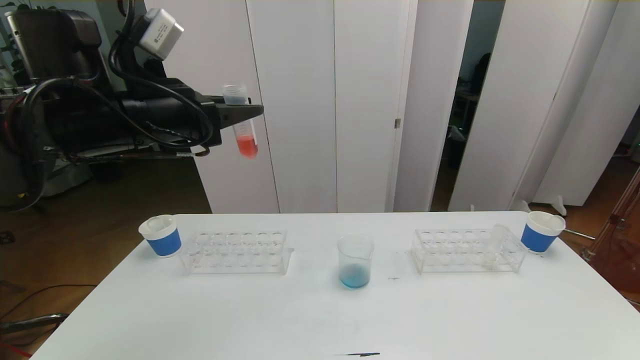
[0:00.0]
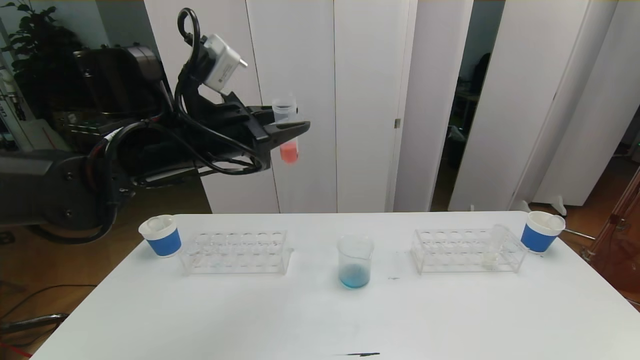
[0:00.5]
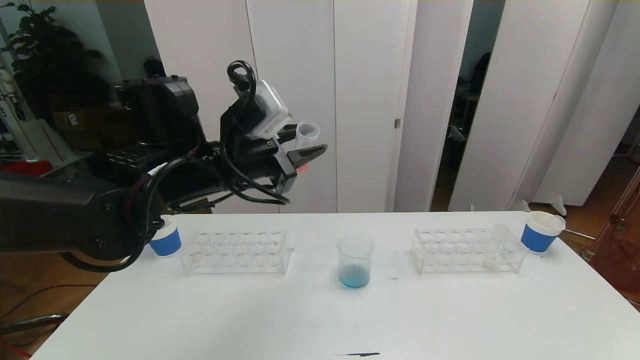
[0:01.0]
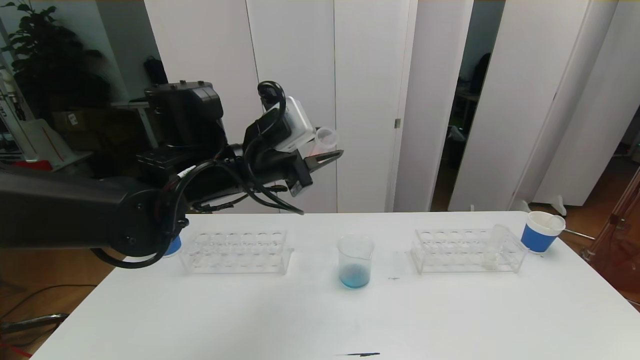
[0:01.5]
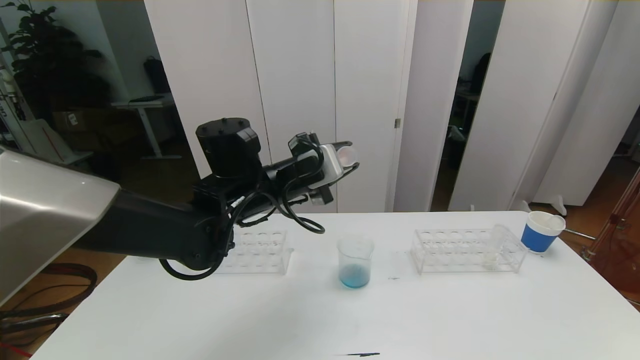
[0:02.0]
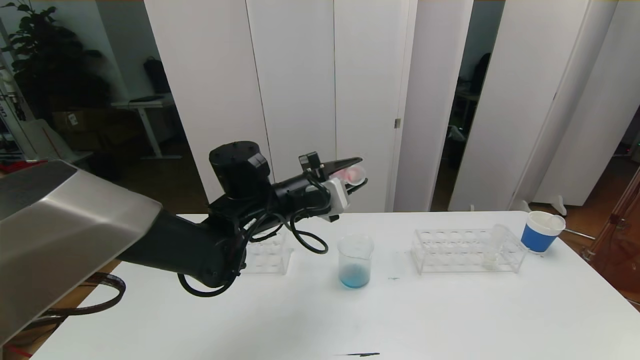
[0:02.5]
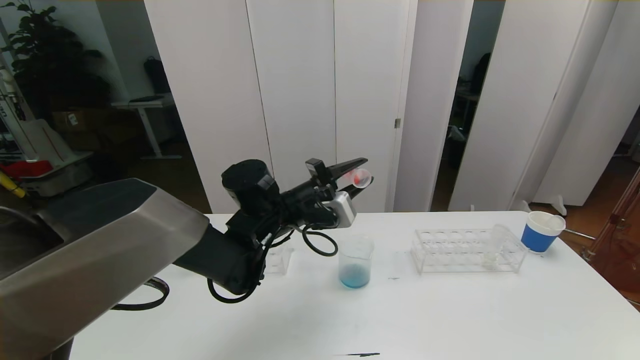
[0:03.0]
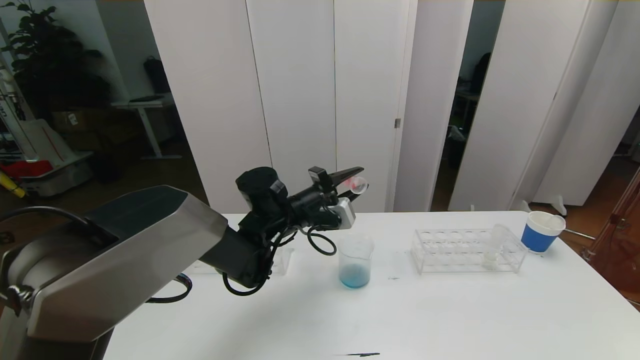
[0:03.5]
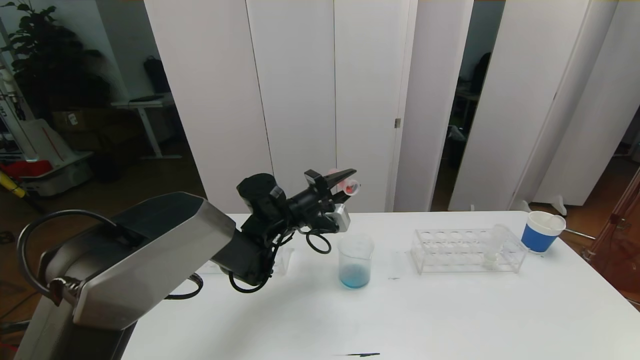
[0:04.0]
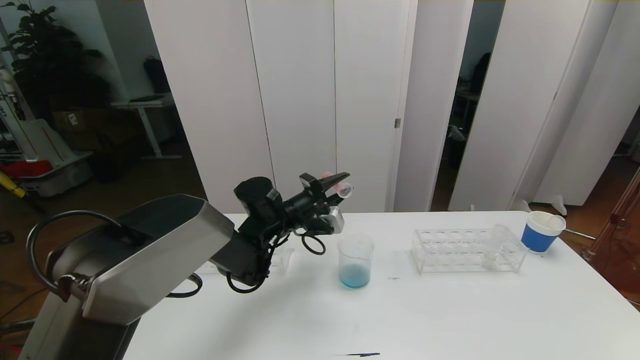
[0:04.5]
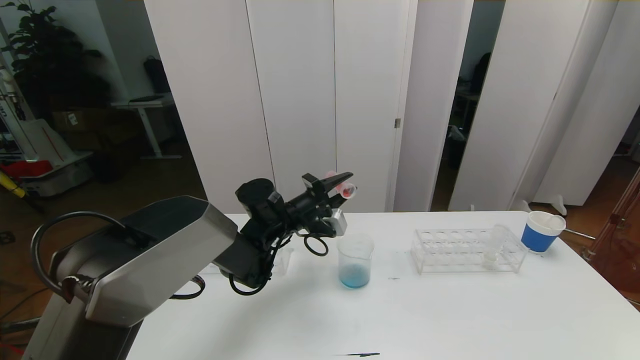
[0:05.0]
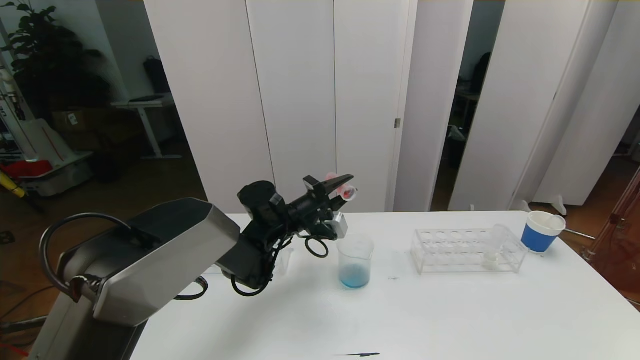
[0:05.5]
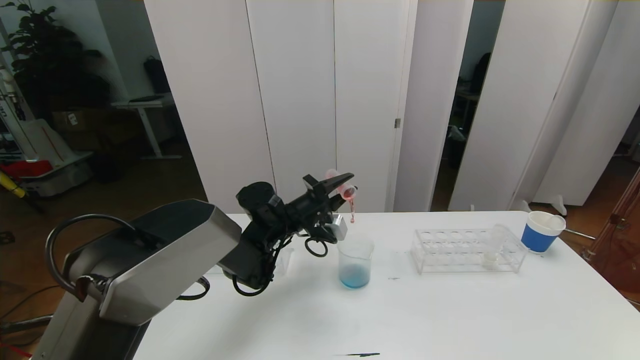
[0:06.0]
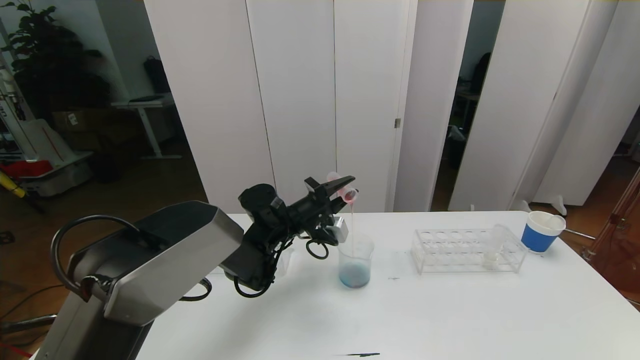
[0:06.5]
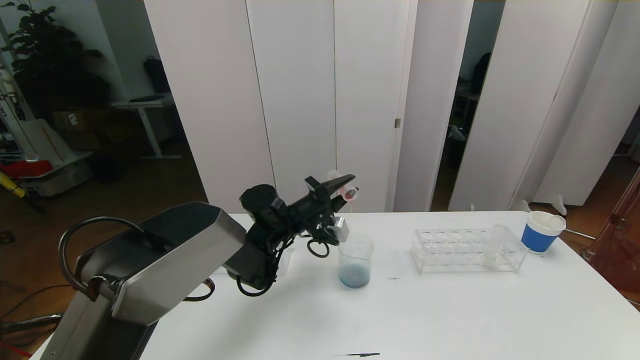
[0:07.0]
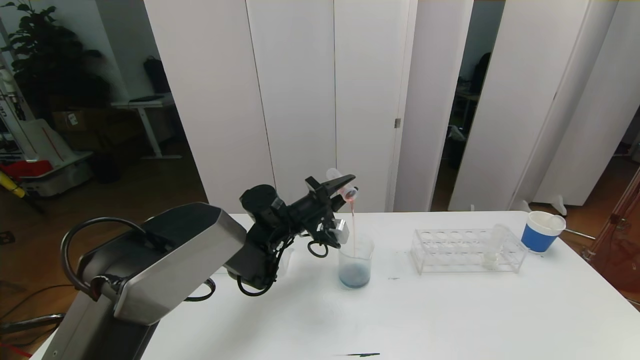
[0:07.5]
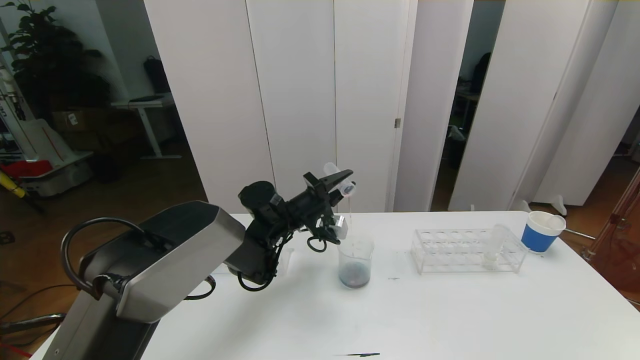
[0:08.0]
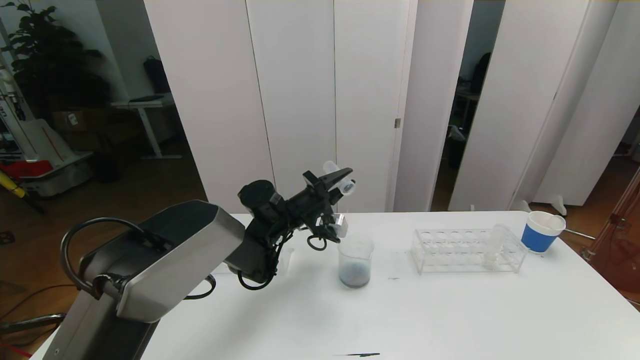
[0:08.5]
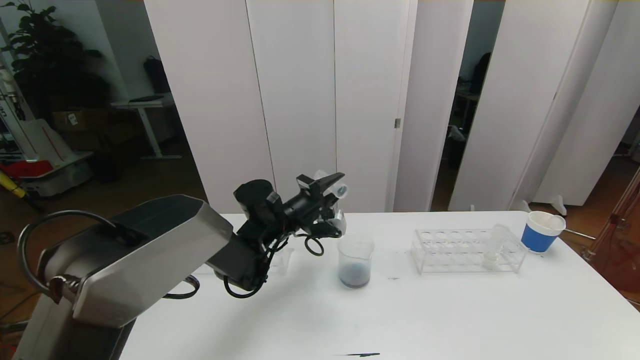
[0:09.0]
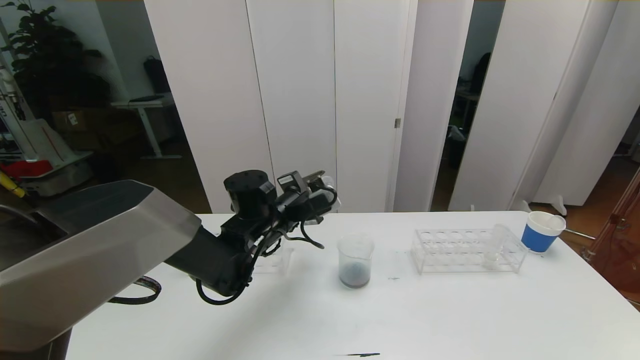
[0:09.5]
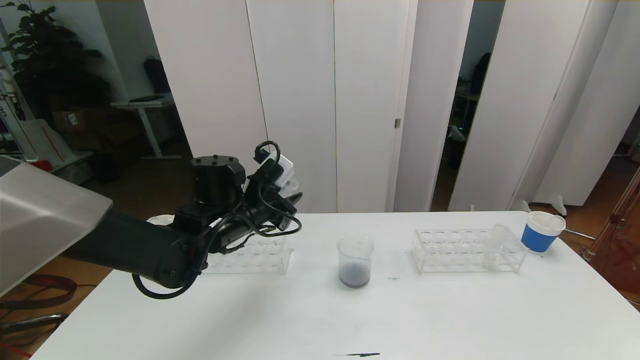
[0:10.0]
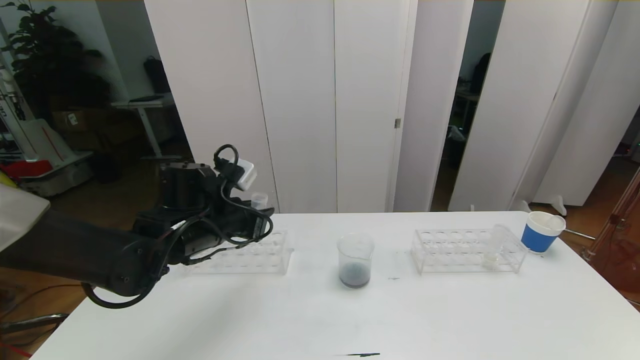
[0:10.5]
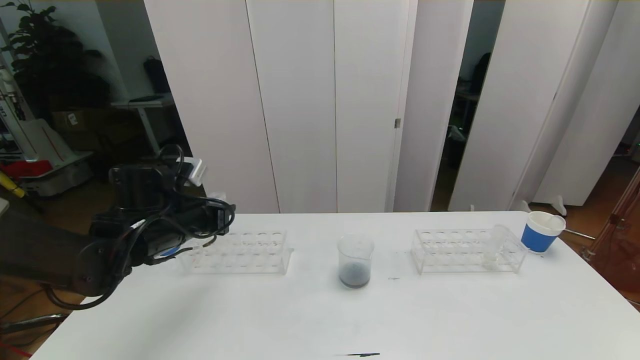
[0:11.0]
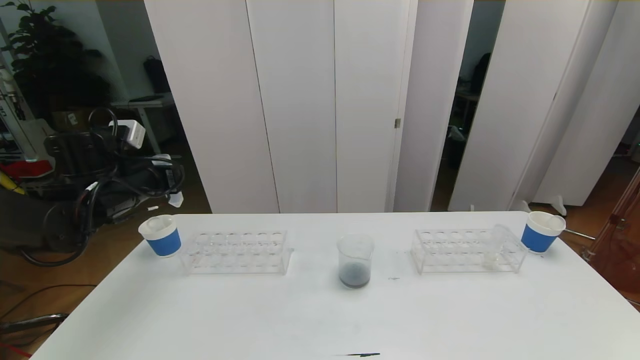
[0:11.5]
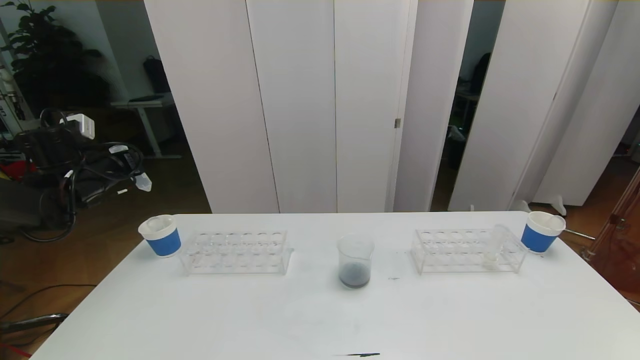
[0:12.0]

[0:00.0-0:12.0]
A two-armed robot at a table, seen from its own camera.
Task of the whole recording: pick up the test tube with red pigment the test tube with blue pigment and the test tube with white pigment by grippers and pour them into the beaker.
0:00.0 to 0:02.0: The left gripper is displaced to the right and downward by approximately 15 cm.
0:02.0 to 0:04.0: The left gripper travels downward and forward by approximately 10 cm.
0:04.0 to 0:08.0: The grippers move only a little.
0:08.0 to 0:10.0: The left gripper shifts some 10 cm backward, to the left and upward.
0:10.0 to 0:12.0: The left gripper moves to the left, about 25 cm.

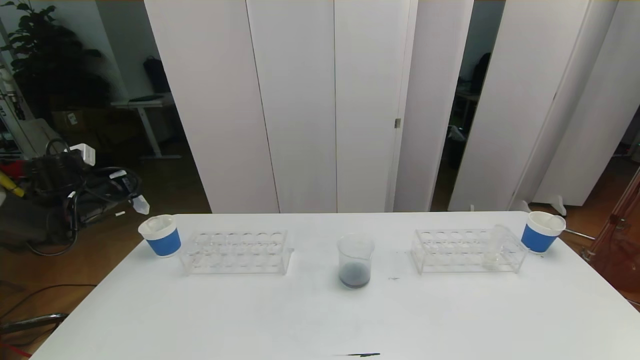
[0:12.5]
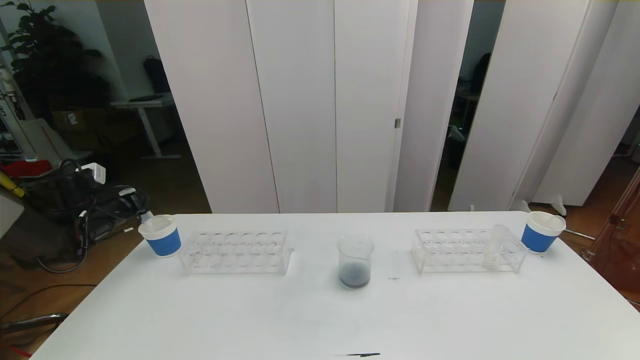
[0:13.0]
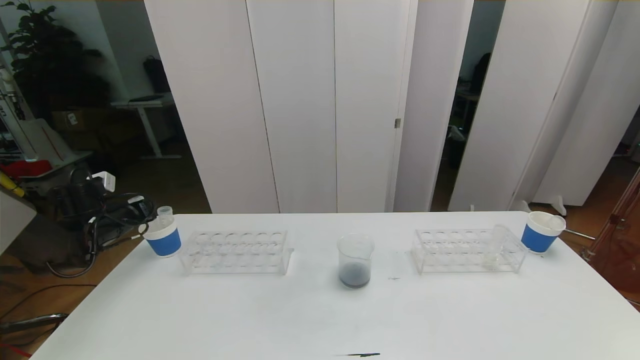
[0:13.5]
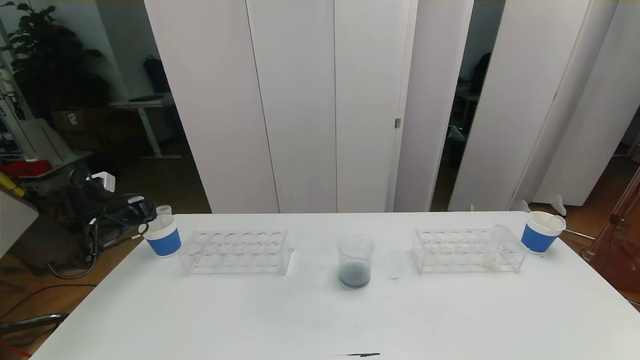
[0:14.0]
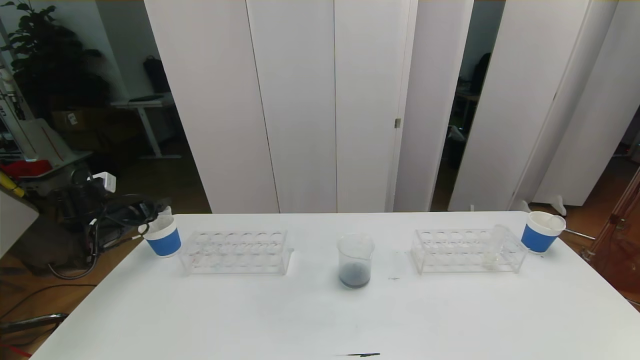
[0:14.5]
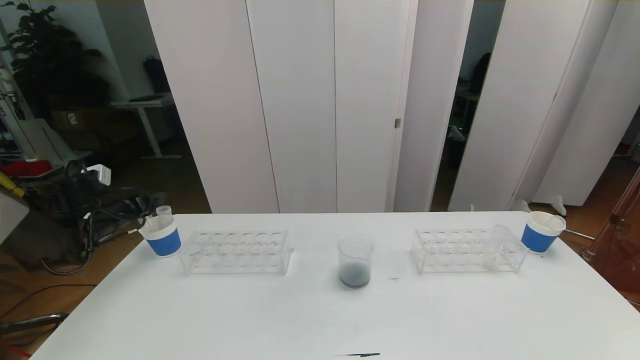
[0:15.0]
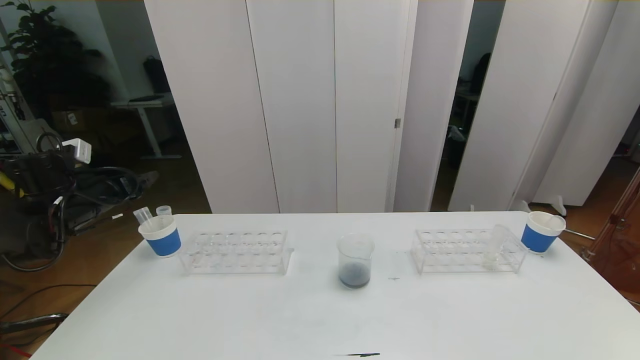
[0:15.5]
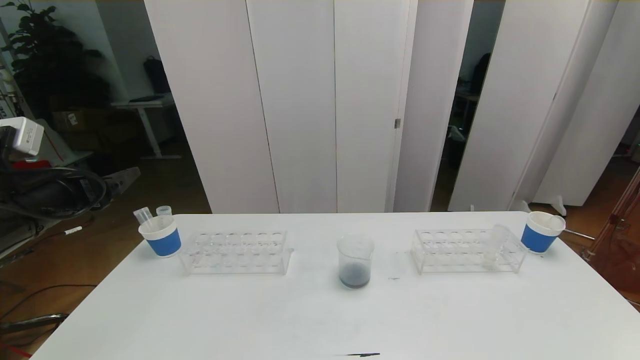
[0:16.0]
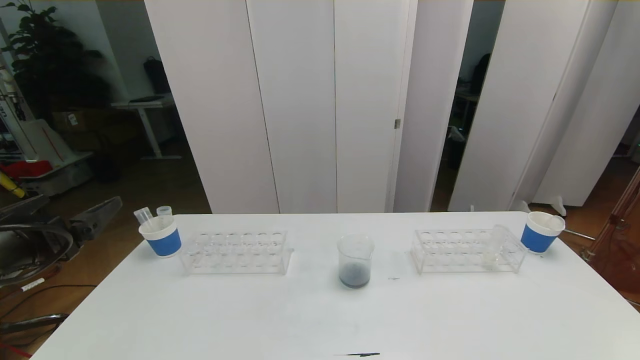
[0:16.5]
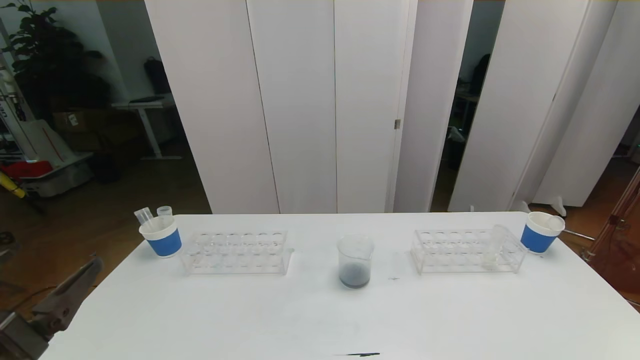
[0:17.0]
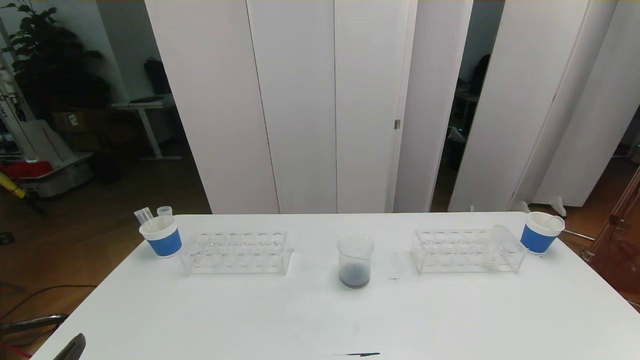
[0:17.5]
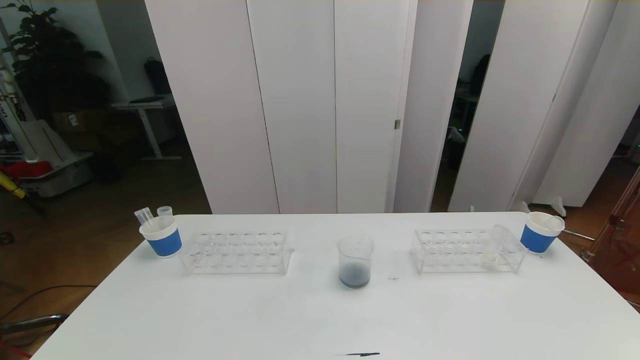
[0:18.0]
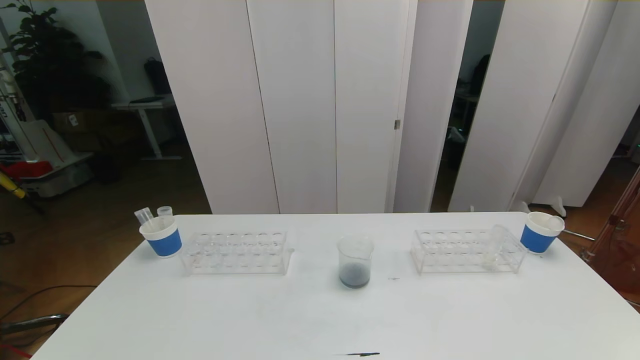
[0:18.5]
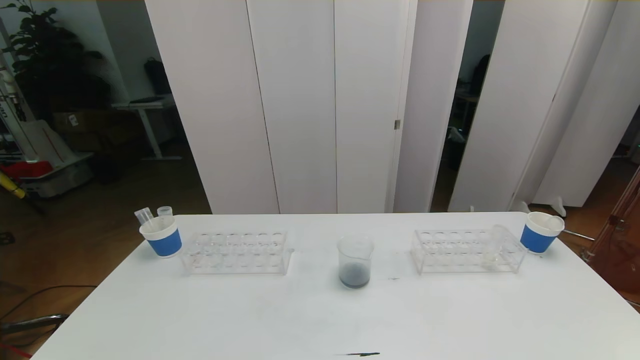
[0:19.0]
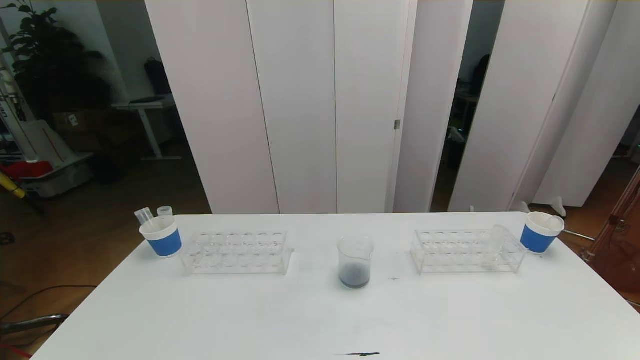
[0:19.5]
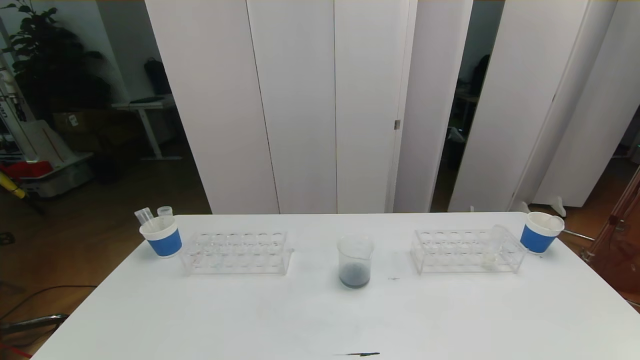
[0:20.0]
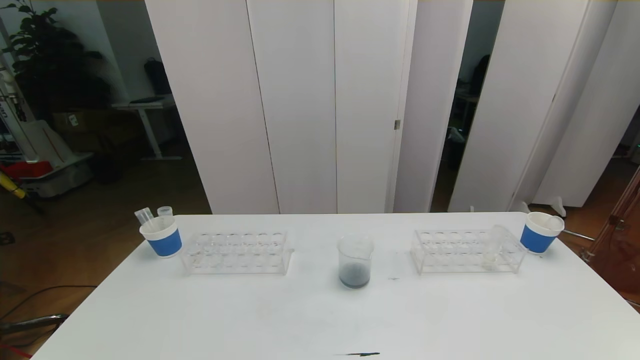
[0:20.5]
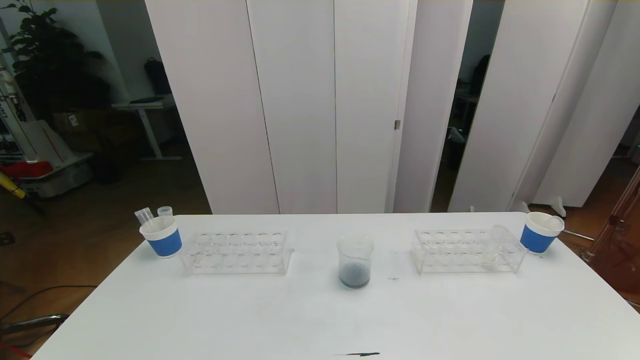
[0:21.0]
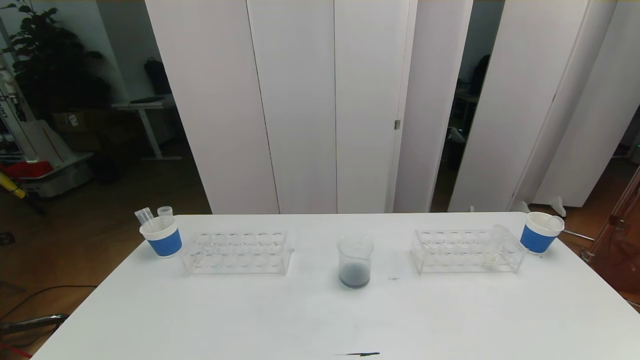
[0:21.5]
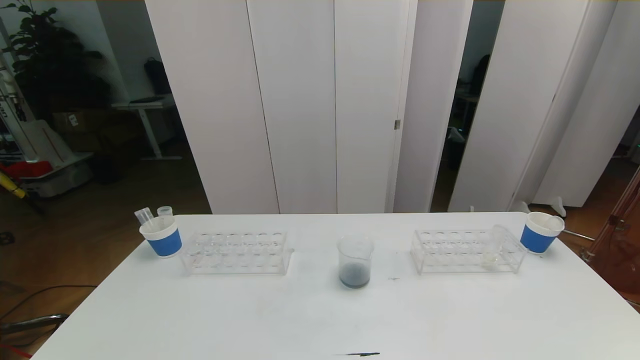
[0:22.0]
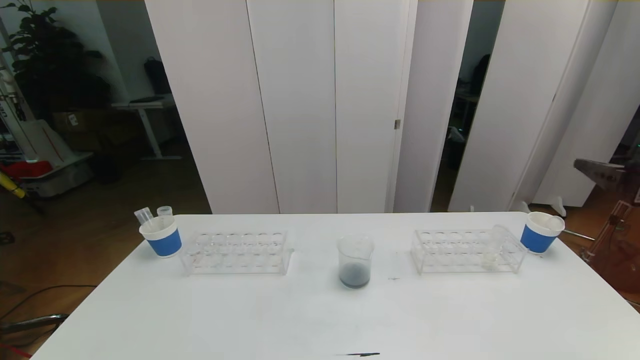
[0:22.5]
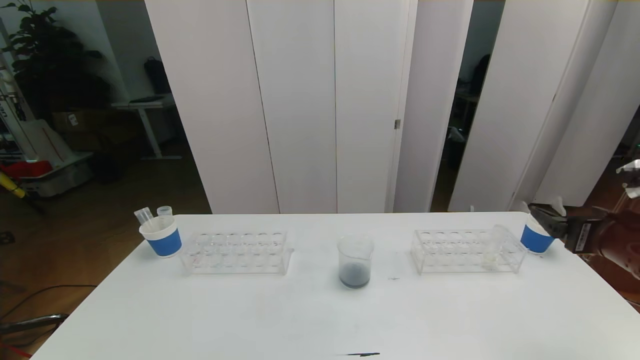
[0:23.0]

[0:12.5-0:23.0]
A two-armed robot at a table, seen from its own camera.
Task of the whole recording: pick up the test tube with red pigment the test tube with blue pigment and the test tube with white pigment by grippers and pour them into the beaker.
Step, 0:12.5 to 0:19.5: Pour the orange reagent into the graduated cylinder and place the test tube into the paper cup.
0:12.5 to 0:14.5: The left gripper travels downward by approximately 5 cm, and opens its fingers.
0:14.5 to 0:16.5: The left gripper is displaced backward, upward and to the right by roughly 30 cm.
0:21.0 to 0:23.0: The right gripper moves forward, roughly 25 cm.
